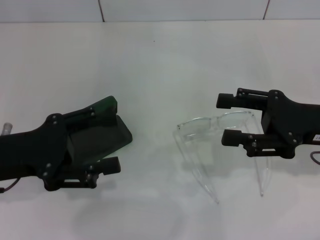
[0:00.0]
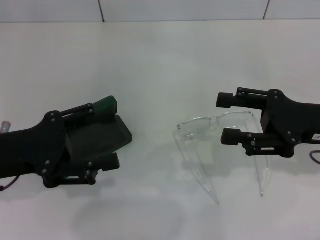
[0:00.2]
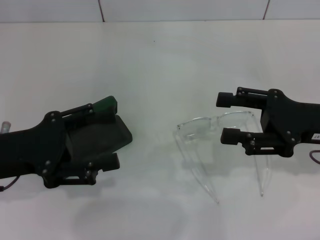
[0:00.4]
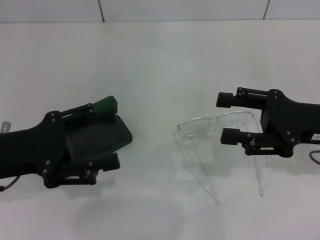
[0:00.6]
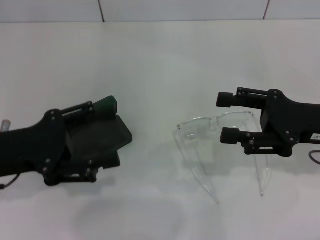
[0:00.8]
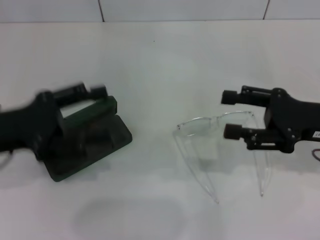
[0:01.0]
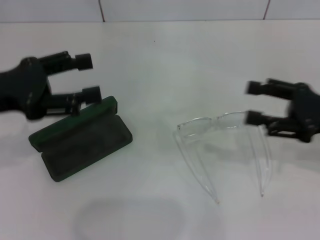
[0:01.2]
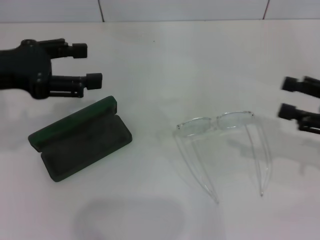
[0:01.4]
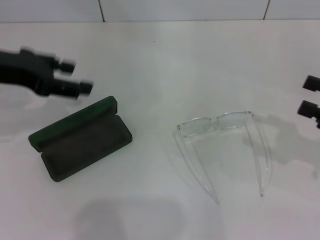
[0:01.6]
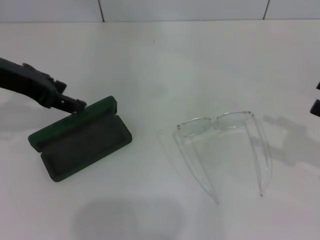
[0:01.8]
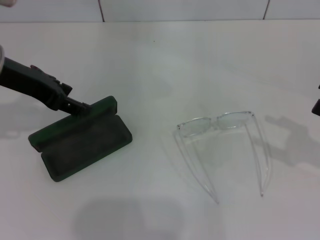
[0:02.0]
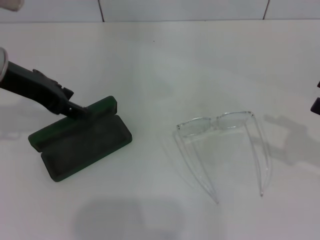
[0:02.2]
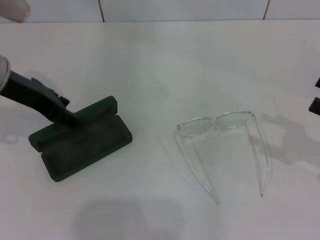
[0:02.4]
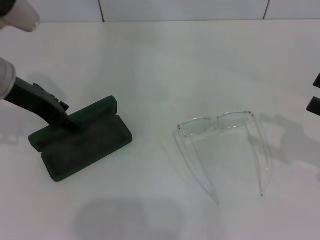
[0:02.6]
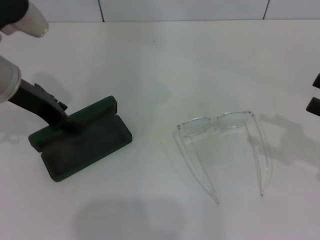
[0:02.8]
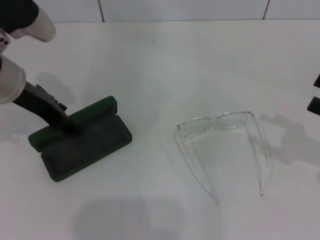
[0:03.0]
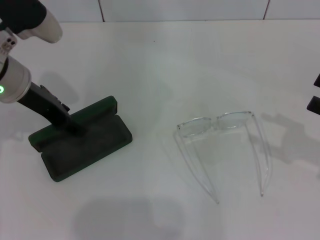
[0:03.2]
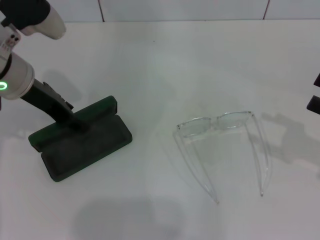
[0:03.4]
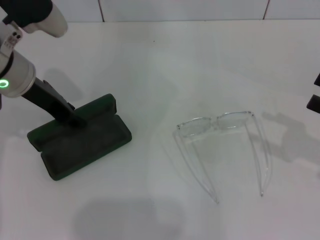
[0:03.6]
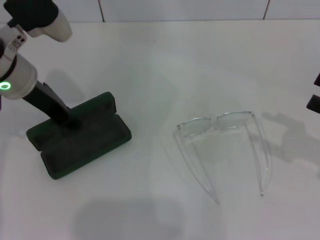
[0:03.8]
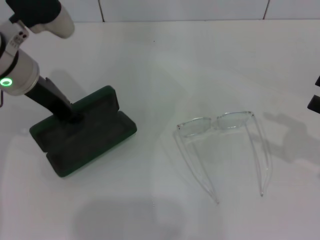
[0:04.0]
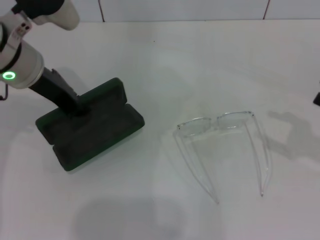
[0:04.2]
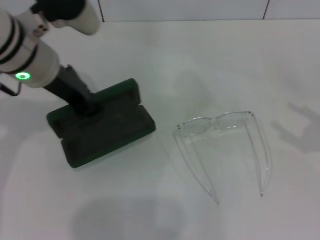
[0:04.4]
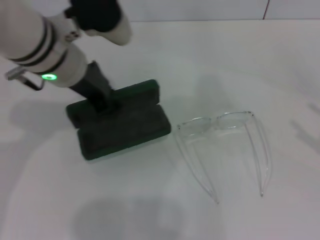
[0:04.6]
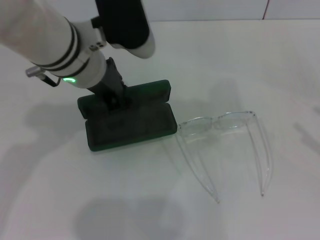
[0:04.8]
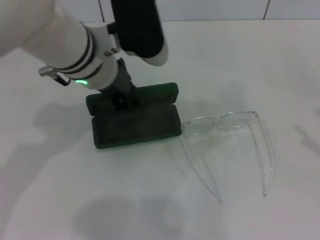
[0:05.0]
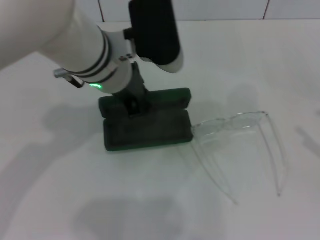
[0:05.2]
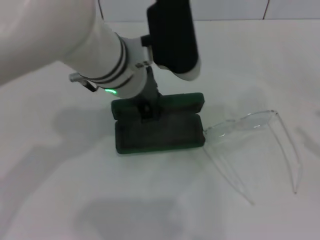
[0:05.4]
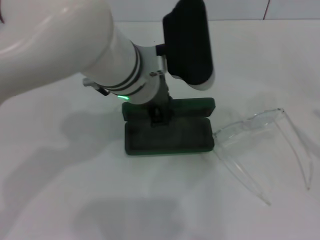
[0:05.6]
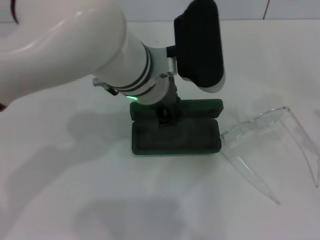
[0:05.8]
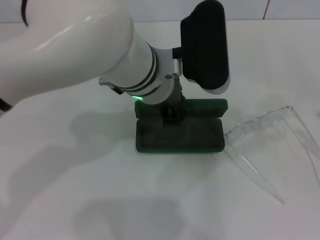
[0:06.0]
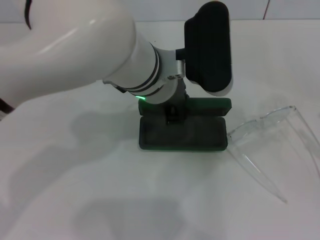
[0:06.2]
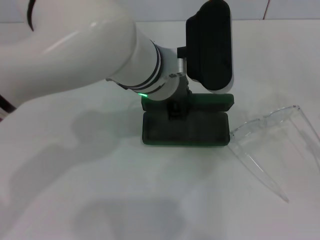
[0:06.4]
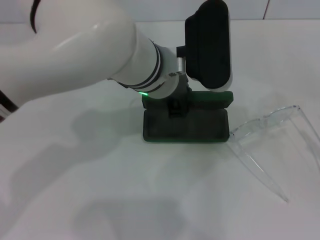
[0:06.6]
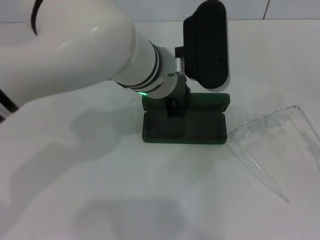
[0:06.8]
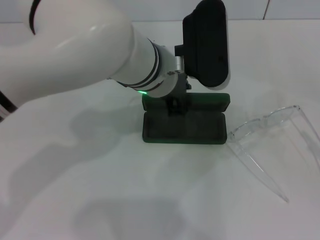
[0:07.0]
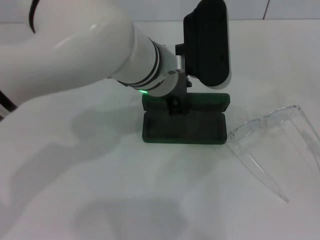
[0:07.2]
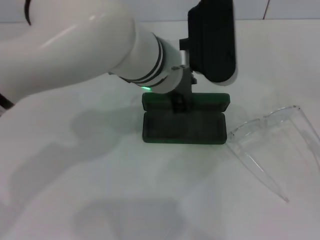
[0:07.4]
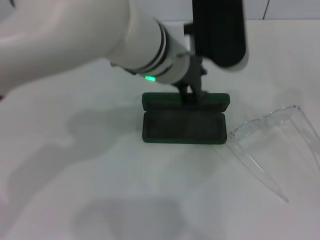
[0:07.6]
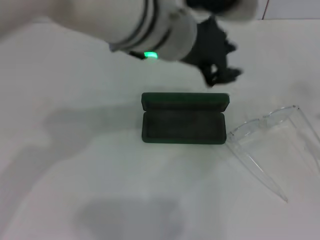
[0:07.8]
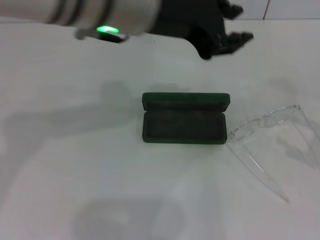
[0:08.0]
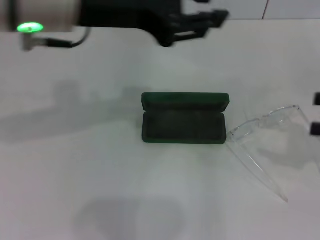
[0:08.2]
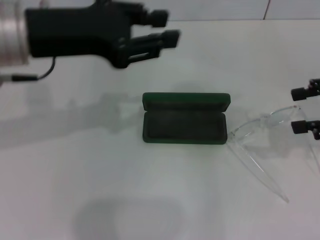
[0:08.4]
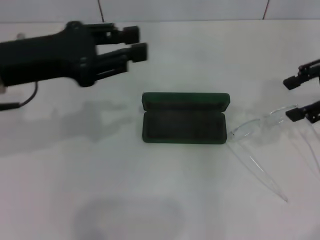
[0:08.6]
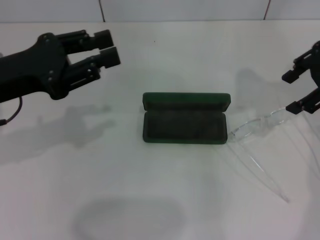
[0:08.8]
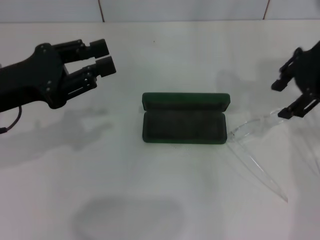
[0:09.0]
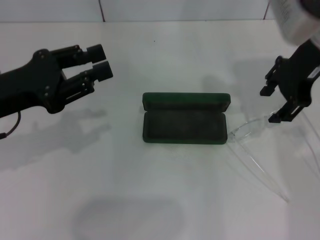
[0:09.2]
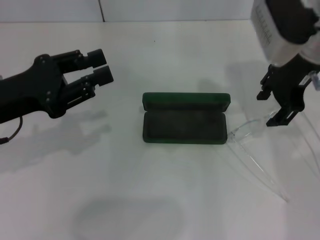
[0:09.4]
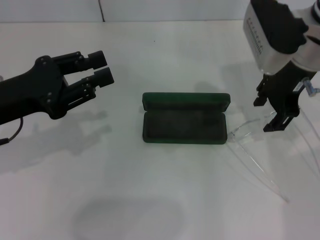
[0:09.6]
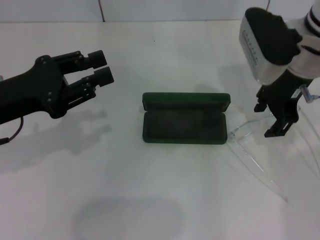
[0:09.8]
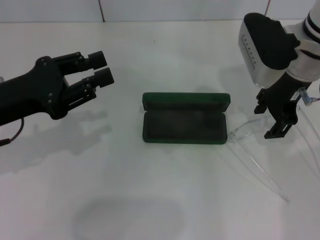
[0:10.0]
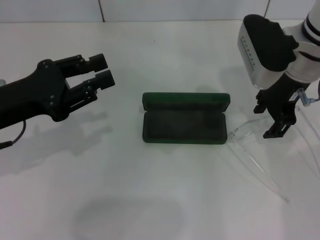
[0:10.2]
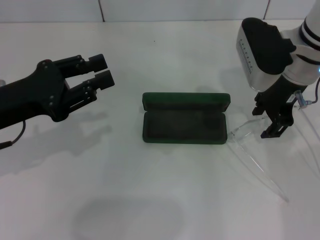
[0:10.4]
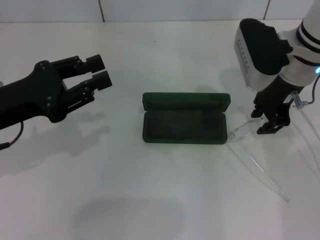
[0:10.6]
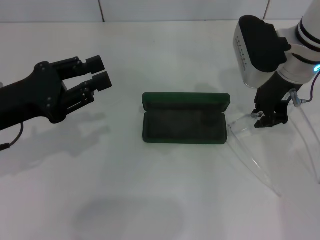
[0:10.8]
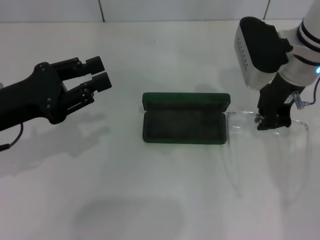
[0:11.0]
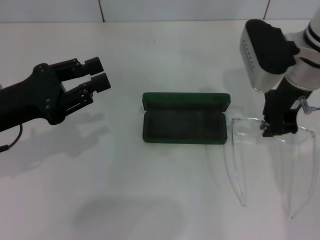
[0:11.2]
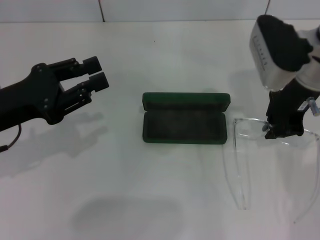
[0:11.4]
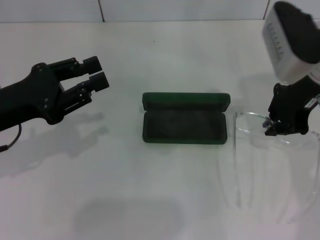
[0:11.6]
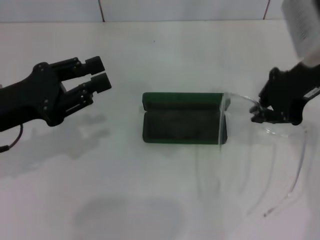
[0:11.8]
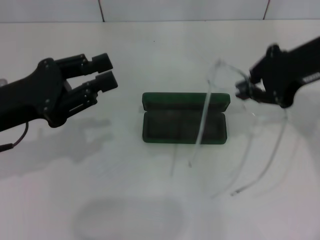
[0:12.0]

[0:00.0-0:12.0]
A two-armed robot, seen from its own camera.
Step, 0:00.0 to 0:03.8: Grab the glasses case with your left hand.
Step, 0:04.0 to 0:06.8: Place the glasses case in the center of the table with your left hand.
Step, 0:07.0 to 0:10.8: Grab the eyeglass frame with your right hand.
0:00.0 to 0:01.6: The right gripper moves to the right, approximately 10 cm; the left gripper goes roughly 15 cm upward and forward.
0:01.6 to 0:03.0: The left gripper shifts by some 5 cm.
0:03.0 to 0:04.4: The left gripper moves to the right, approximately 5 cm, and closes its fingers.
0:04.4 to 0:06.0: The right gripper changes place by approximately 5 cm. Meanwhile the left gripper is displaced to the right by some 15 cm.
0:06.0 to 0:07.6: The grippers stay close to where they were, moving slightly.
0:07.6 to 0:09.0: The right gripper shifts approximately 30 cm forward, to the left and upward. The left gripper shifts approximately 25 cm to the left.
0:09.0 to 0:10.4: The right gripper heads downward and to the left, covering some 10 cm.
0:10.4 to 0:12.0: The right gripper heads upward and backward, covering roughly 10 cm, and closes up.

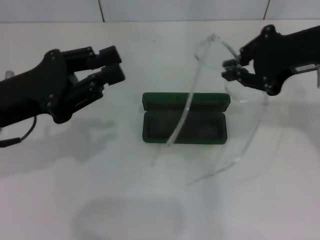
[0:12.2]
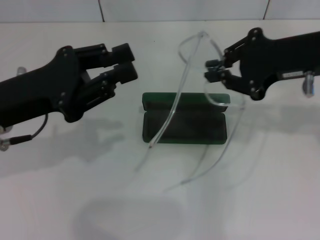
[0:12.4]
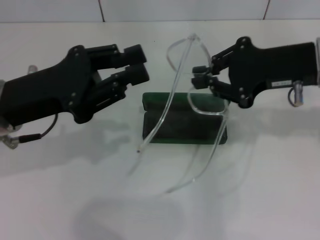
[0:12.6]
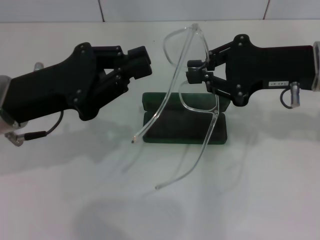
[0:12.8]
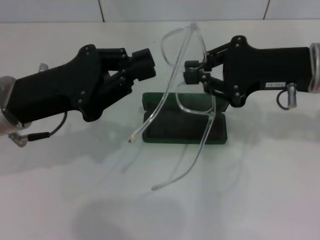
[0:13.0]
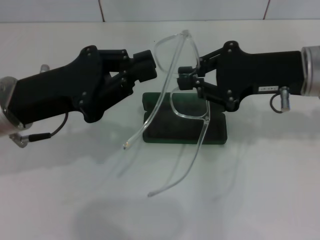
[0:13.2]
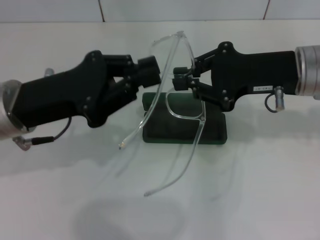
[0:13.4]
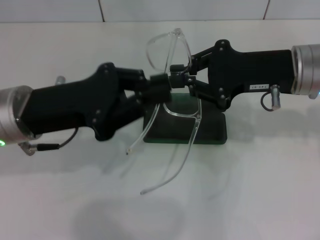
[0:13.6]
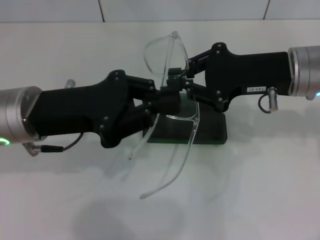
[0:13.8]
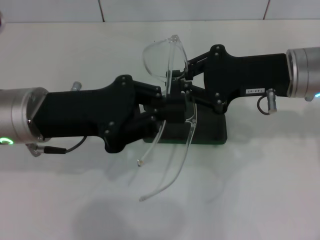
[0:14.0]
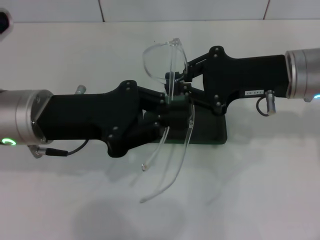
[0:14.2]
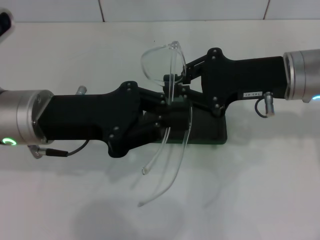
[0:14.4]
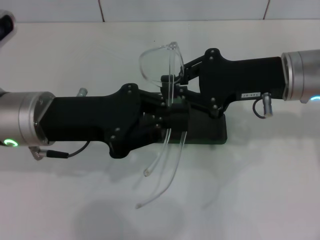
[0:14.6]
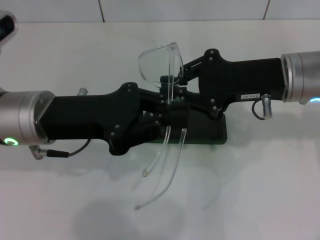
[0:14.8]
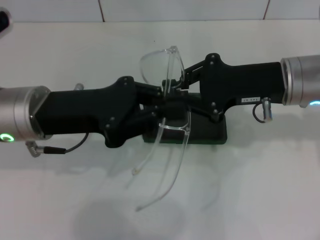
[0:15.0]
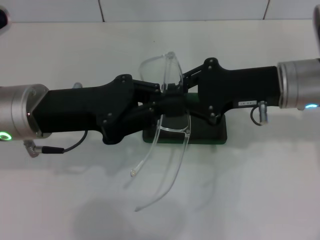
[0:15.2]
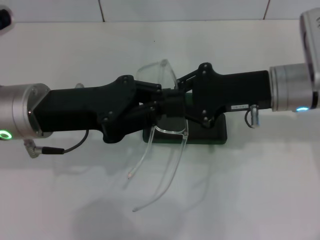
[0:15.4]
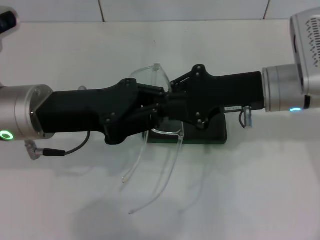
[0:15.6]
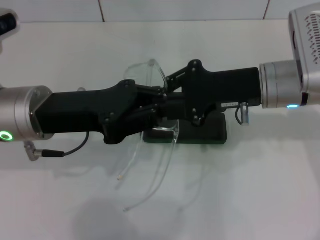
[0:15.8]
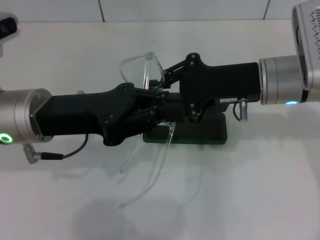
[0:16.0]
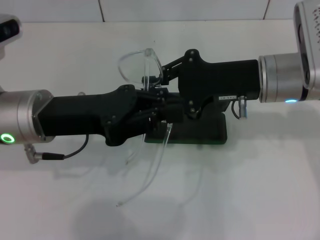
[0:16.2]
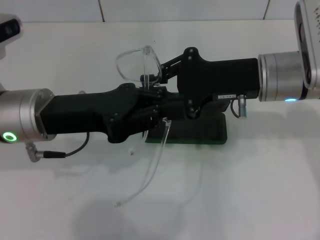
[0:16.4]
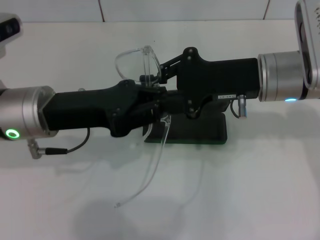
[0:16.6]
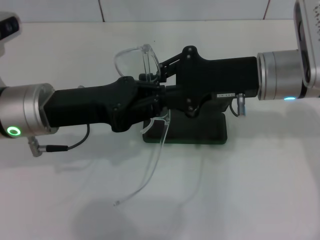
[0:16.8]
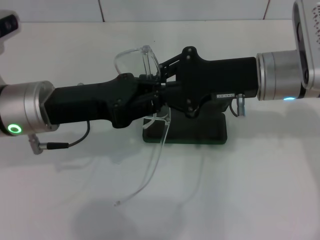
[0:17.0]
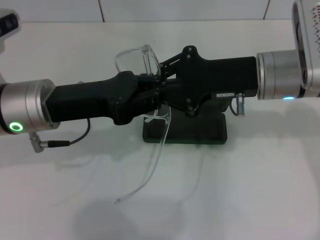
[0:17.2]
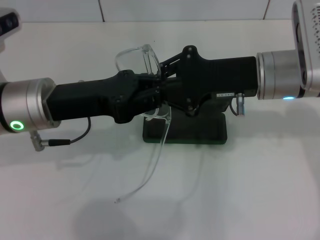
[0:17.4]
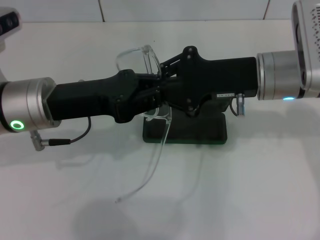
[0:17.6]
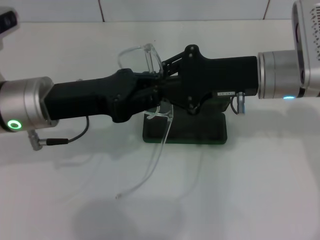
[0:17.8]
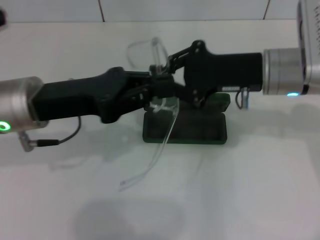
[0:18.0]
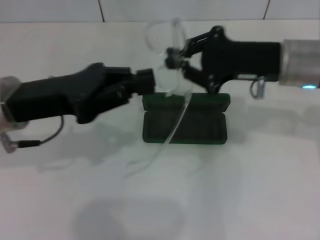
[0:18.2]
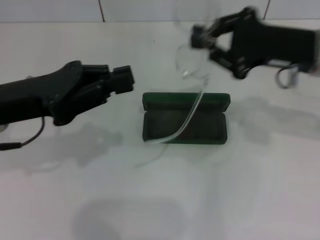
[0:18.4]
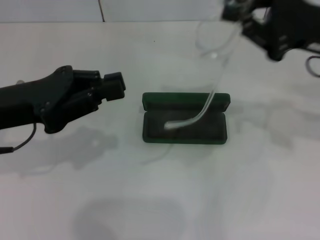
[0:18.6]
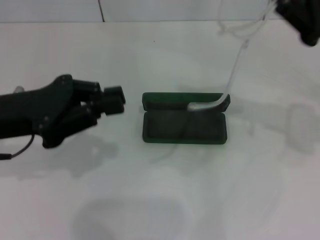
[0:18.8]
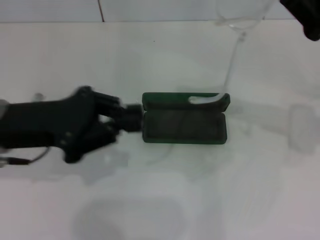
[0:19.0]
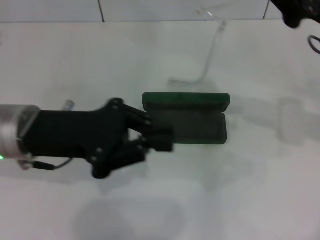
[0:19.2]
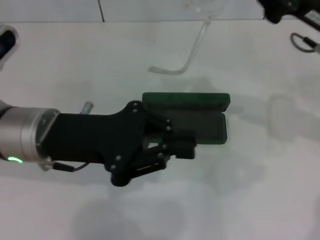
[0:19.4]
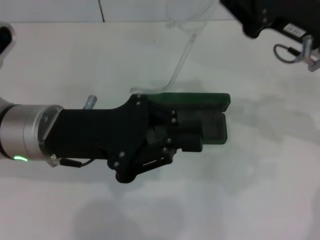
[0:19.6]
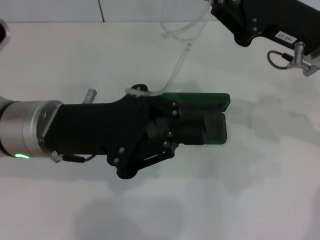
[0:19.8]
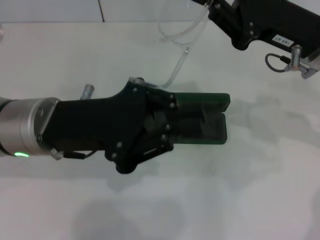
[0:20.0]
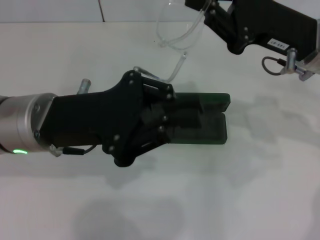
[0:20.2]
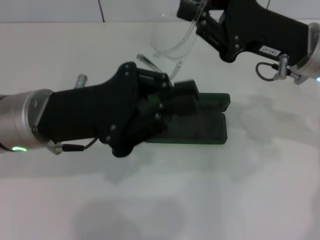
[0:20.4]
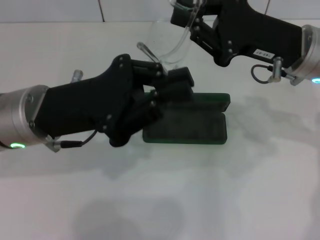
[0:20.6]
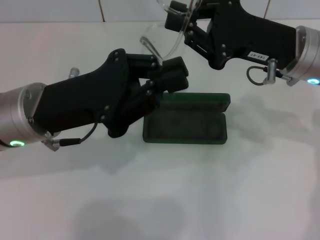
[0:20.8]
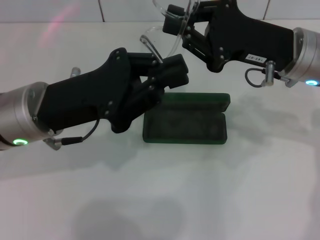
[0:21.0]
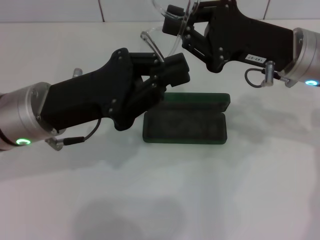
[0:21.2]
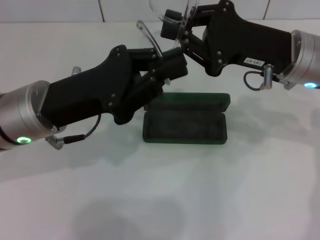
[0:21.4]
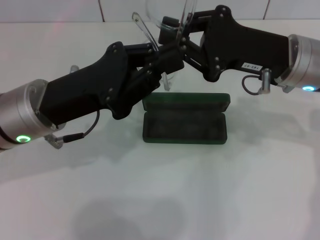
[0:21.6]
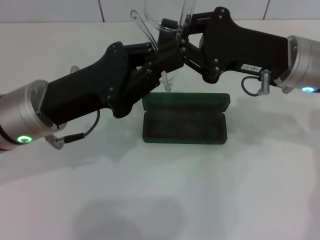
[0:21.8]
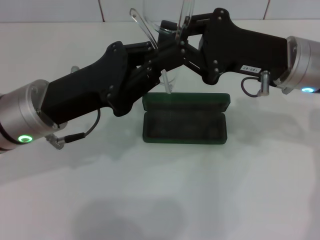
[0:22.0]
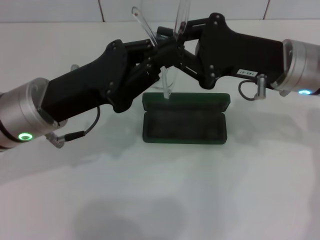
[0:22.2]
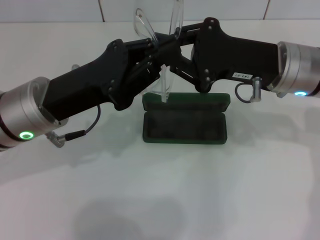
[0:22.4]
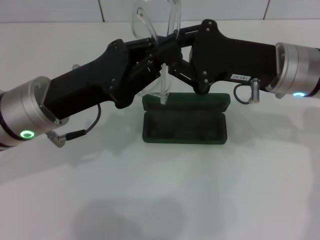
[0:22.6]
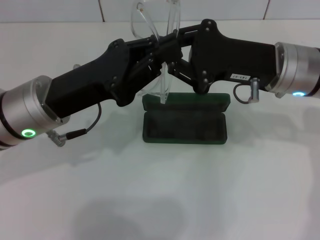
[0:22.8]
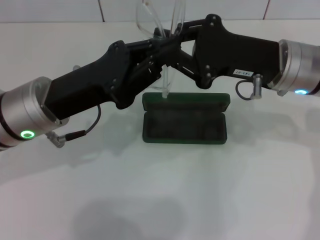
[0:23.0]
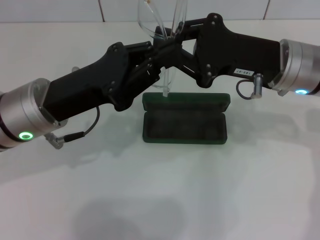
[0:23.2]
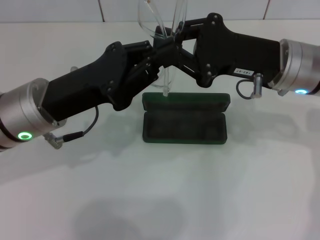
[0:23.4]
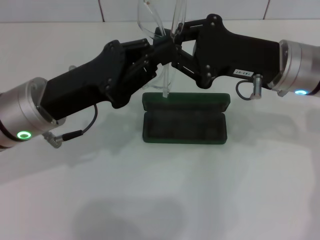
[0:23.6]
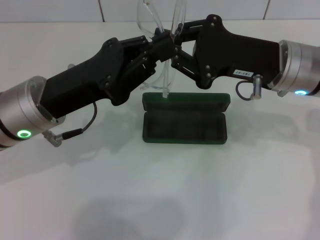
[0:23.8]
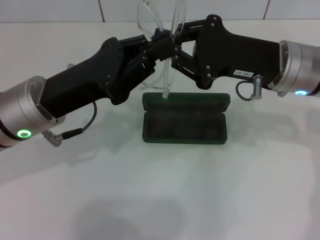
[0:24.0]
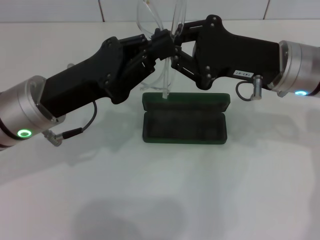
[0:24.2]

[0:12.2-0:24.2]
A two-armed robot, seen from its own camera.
Step, 0:12.2 to 0:22.6: Fold the frame with your left hand.
0:12.2 to 0:13.8: The right gripper goes about 5 cm downward, while the left gripper moves to the right, some 5 cm.
0:13.8 to 0:16.6: The grippers stay close to where they were, moving slightly.
0:18.2 to 0:19.8: The right gripper goes to the right and returns, some 10 cm each way; the left gripper moves to the right, roughly 5 cm.
0:22.6 to 0:24.2: Both grippers stay about where they are.
